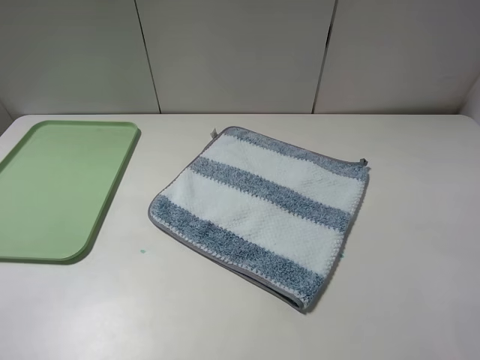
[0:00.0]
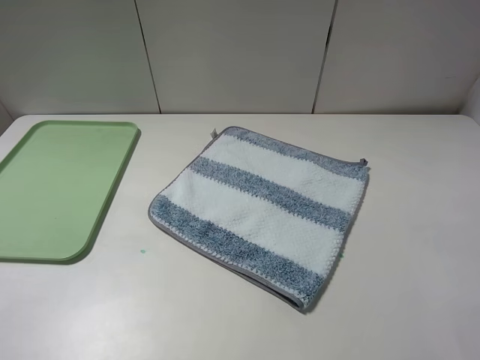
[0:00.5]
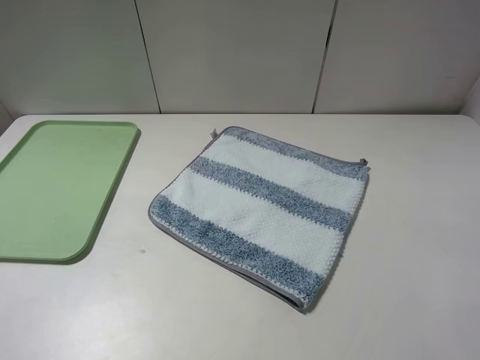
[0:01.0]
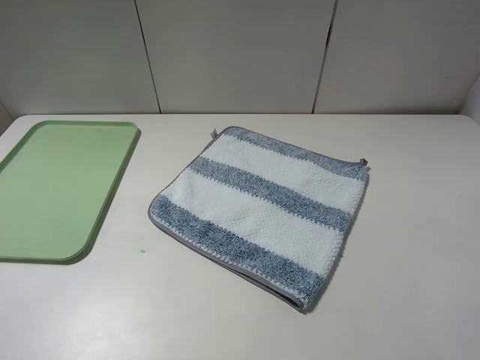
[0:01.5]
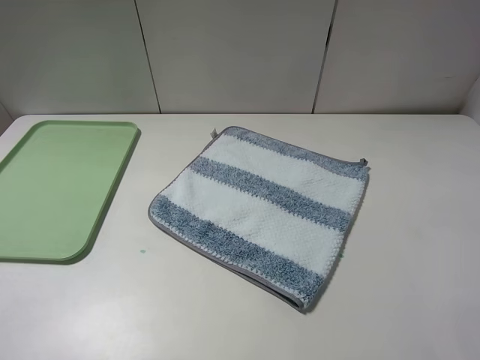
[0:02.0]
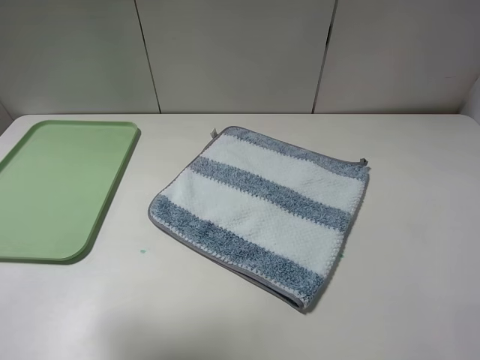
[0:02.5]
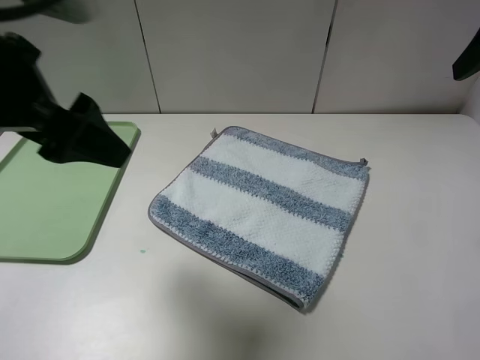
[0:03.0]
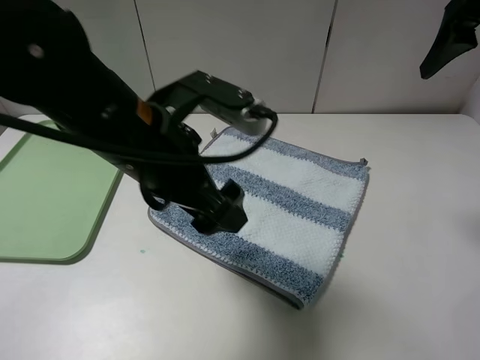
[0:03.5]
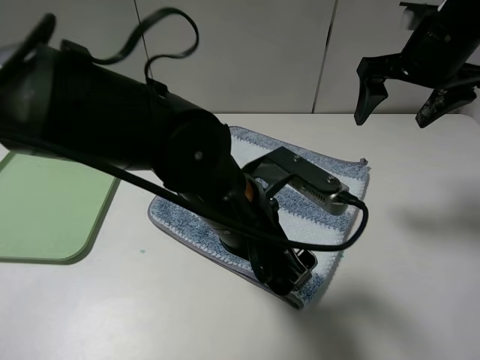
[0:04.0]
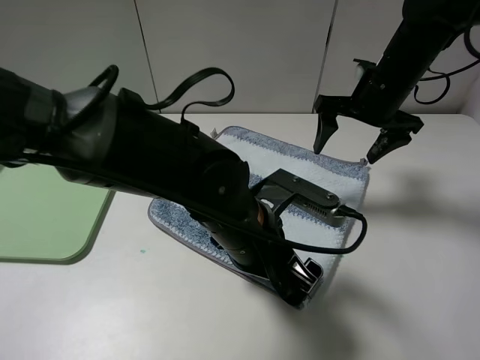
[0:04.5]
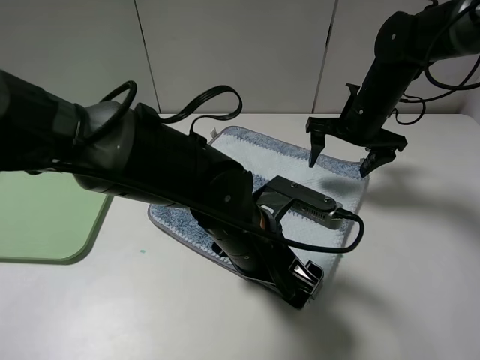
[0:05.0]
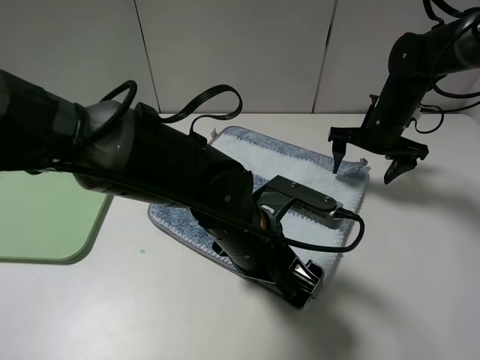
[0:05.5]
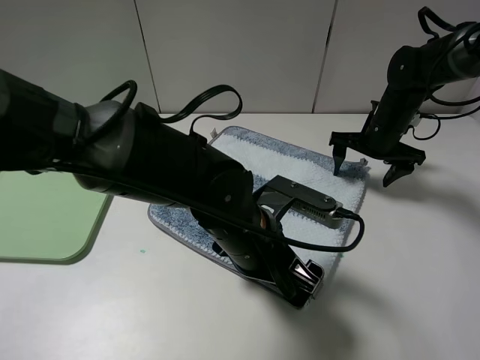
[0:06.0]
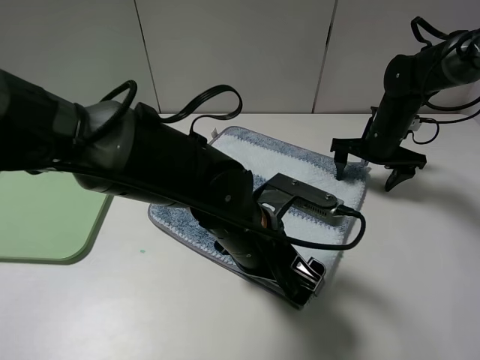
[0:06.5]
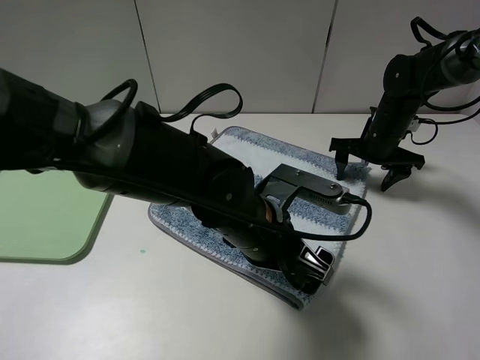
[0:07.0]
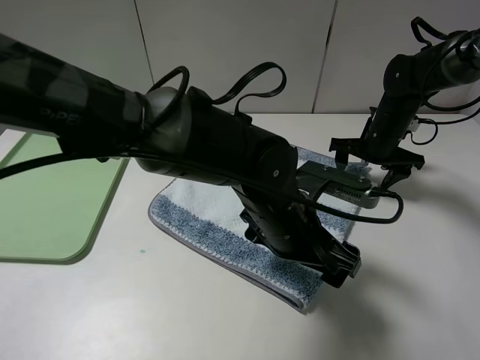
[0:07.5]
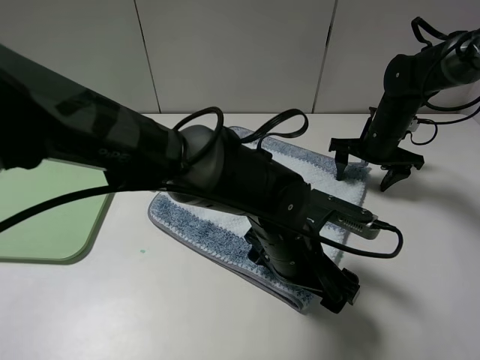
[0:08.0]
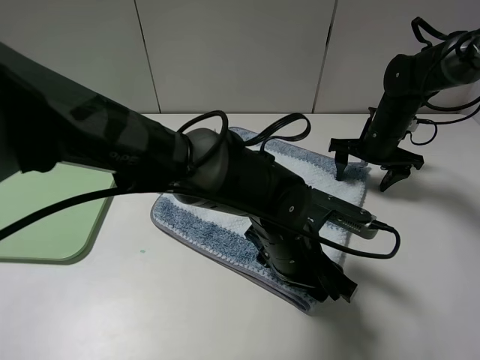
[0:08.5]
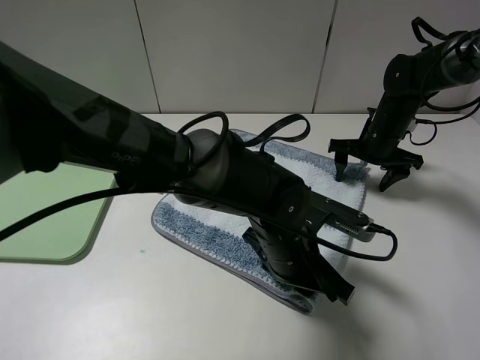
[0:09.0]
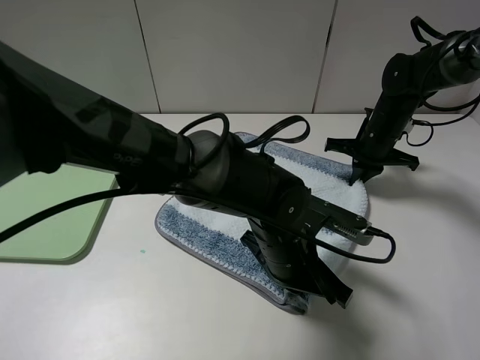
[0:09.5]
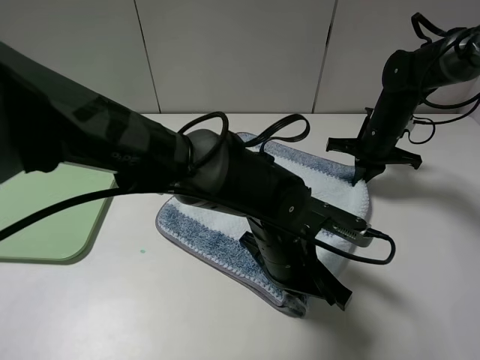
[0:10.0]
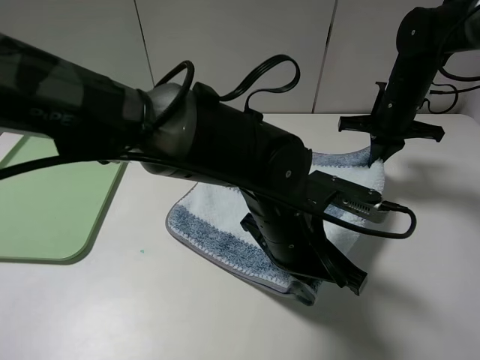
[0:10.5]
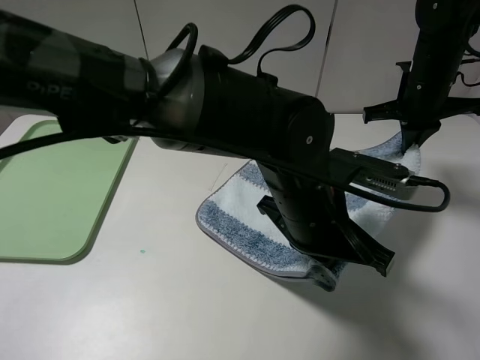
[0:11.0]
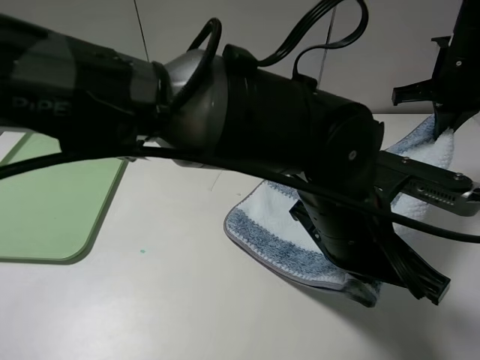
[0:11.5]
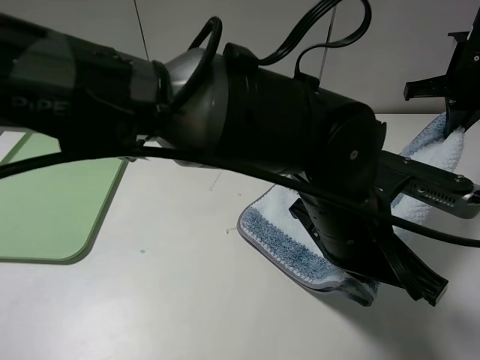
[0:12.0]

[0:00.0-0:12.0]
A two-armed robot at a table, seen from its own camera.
Step, 0:00.0 to 0:09.5: Grasp the blue white towel with the left gripper.
0:02.0 to 0:04.0: The left gripper shifts some 40 cm to the right, downward and forward. Meanwhile the right gripper heads forward, covering some 30 cm.
0:04.0 to 0:06.0: The right gripper is displaced downward and forward by about 20 cm.
0:06.0 to 0:08.0: The left gripper shifts some 5 cm to the right.
0:08.0 to 0:10.0: The left gripper closes. Meanwhile the right gripper closes its fingers.
0:10.0 to 0:12.0: The right gripper heads upward and to the right, covering about 15 cm. Meanwhile the left gripper is displaced upward by roughly 10 cm.

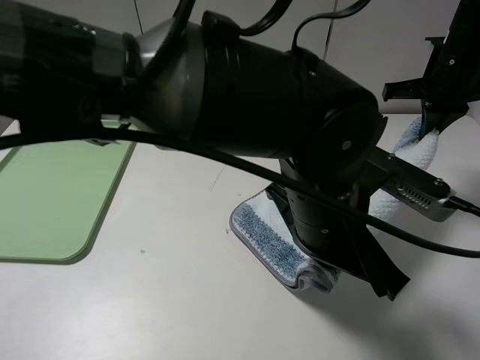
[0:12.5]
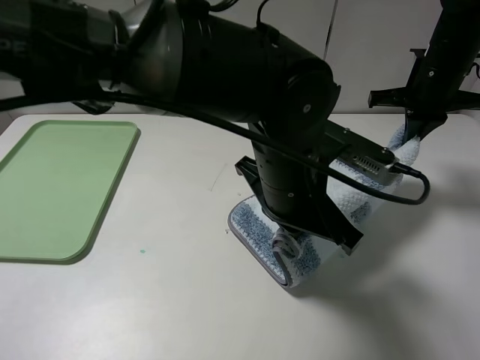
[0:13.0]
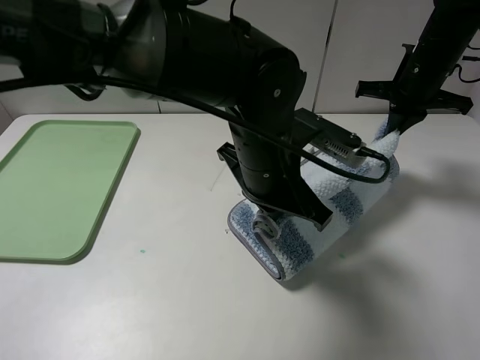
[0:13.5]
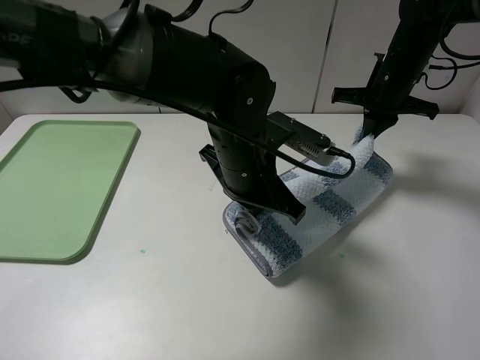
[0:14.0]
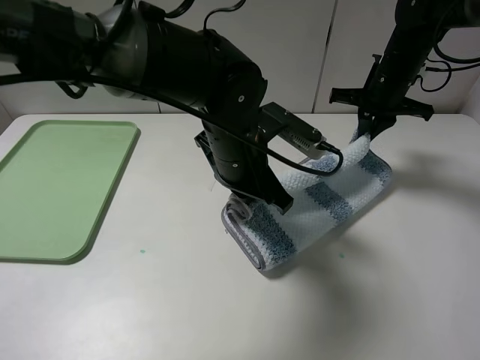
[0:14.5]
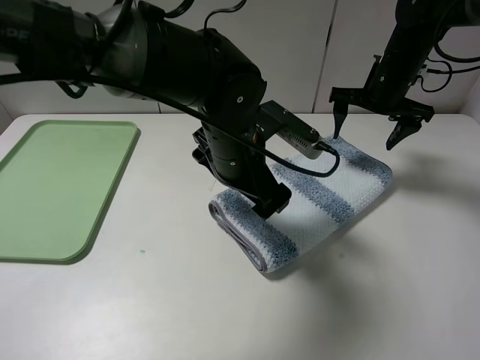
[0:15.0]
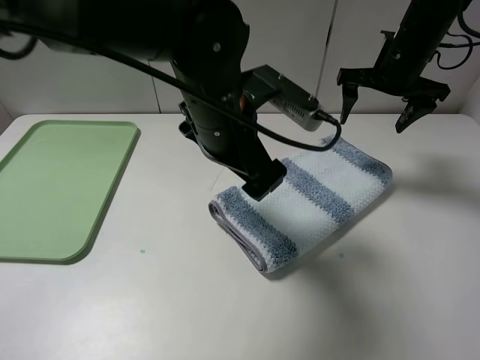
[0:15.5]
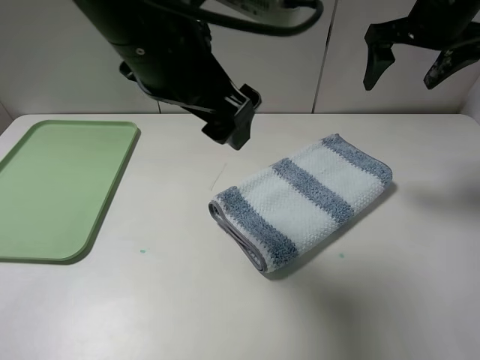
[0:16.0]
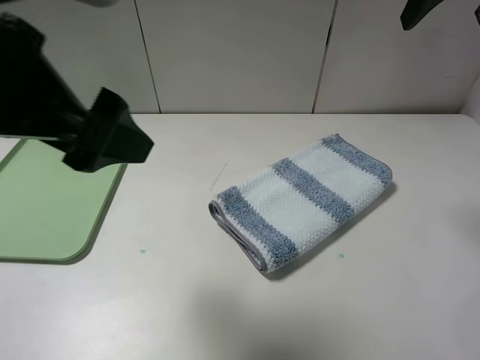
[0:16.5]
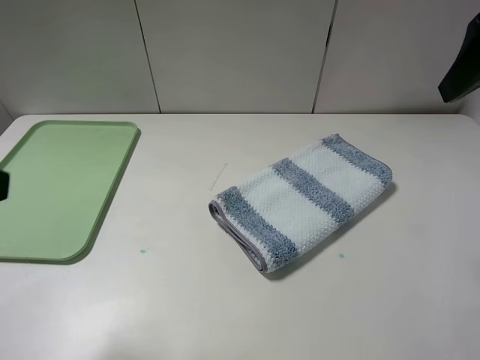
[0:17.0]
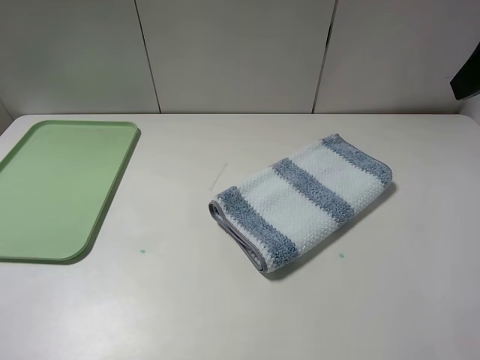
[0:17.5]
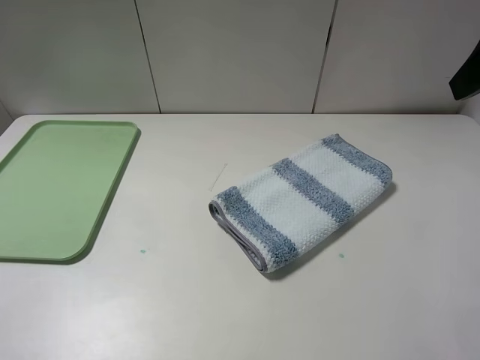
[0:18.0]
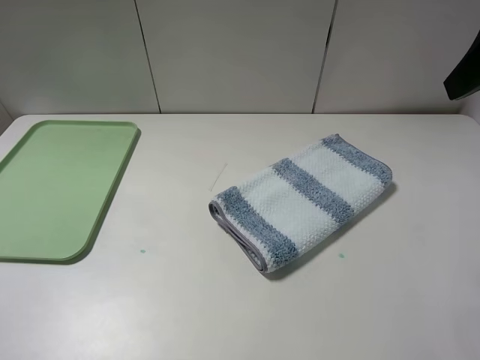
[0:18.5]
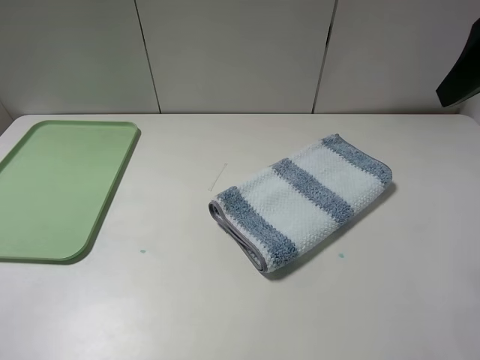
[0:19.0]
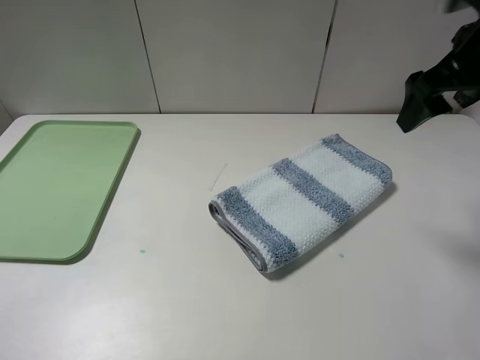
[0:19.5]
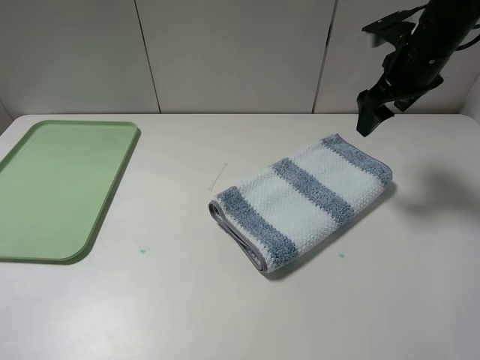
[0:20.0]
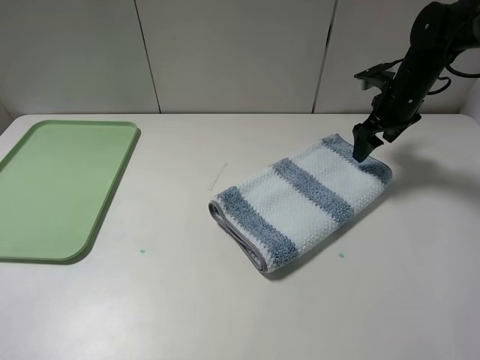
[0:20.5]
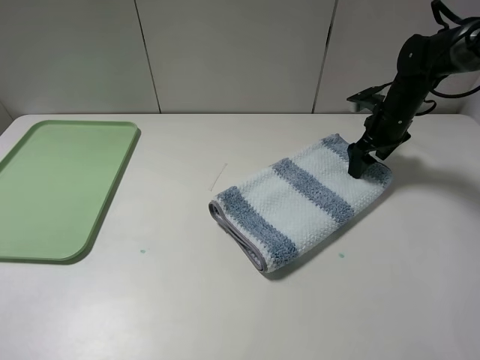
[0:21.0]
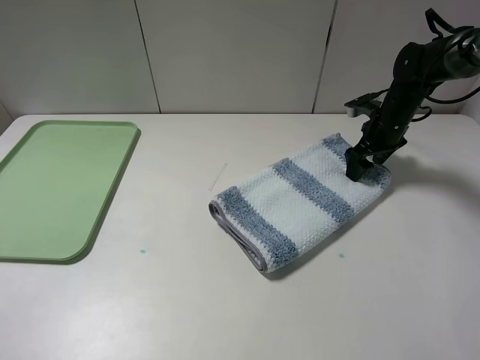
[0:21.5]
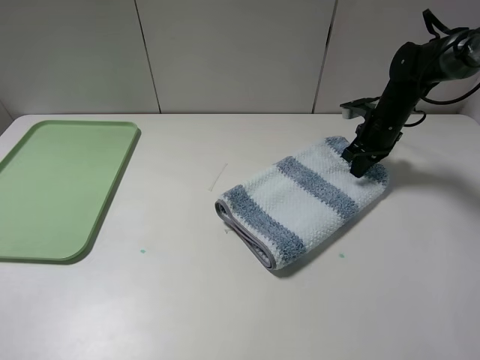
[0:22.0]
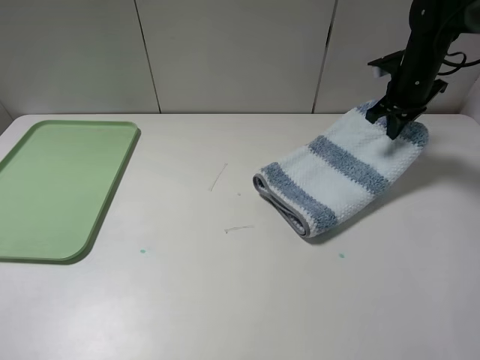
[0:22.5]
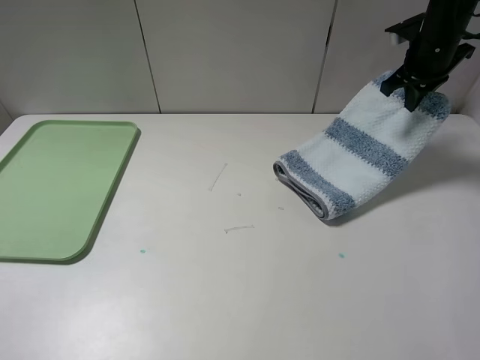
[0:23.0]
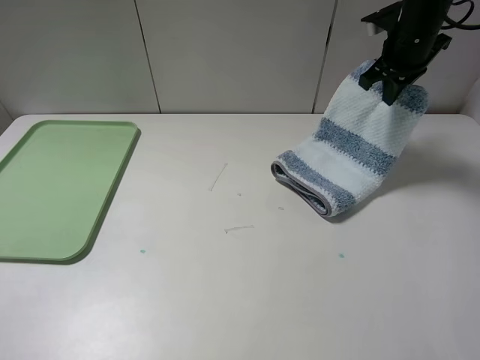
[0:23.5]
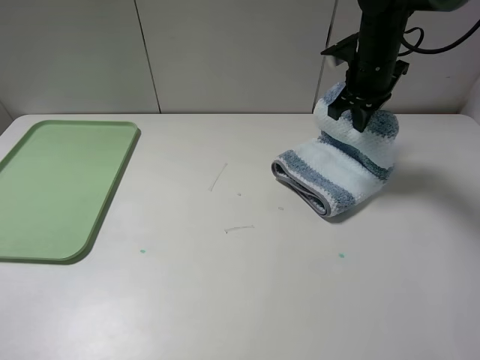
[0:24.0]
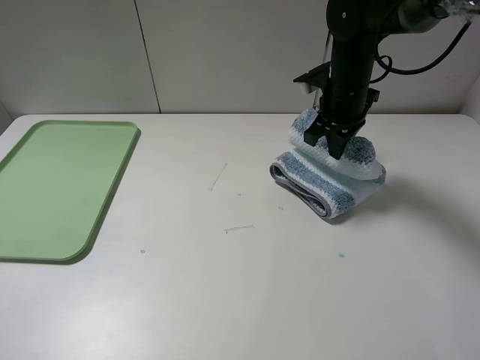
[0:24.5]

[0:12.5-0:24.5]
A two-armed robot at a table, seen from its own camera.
Step, 0:12.5 to 0:14.5: Fold the blue white towel upwards with the left gripper.
Step, 0:15.5 to 0:22.0: Grasp the blue white towel with the right gripper.
0:12.5 to 0:14.5: The left gripper goes some 15 cm forward and to the left; the right gripper travels downward by approximately 5 cm, and opens up.
0:14.5 to 0:16.5: The left gripper moves to the left, upward and backward, roughly 30 cm, and opens its fingers. The right gripper travels upward and backward by some 25 cm, and opens its fingers.
0:16.5 to 0:18.5: The left gripper shifts some 20 cm to the left, backward and downward. The right gripper heads backward, covering approximately 10 cm.
0:18.5 to 0:20.5: The right gripper is displaced forward and downward by roughly 35 cm.
0:20.5 to 0:22.5: The right gripper closes its fingers.
0:22.5 to 0:24.5: The right gripper heads to the left and backward, covering about 15 cm.

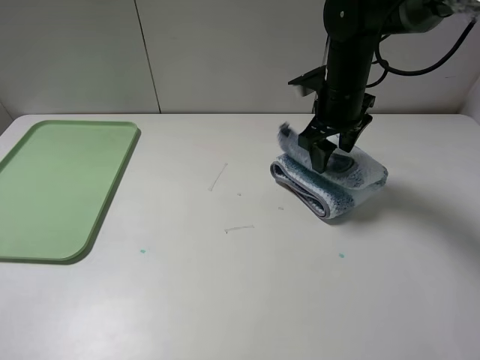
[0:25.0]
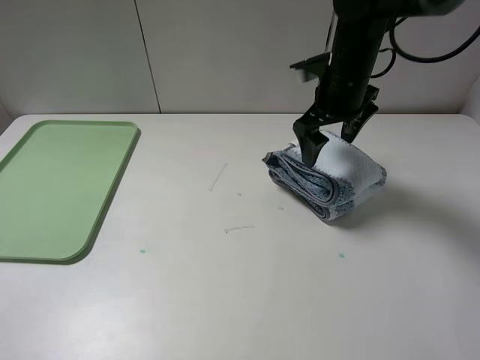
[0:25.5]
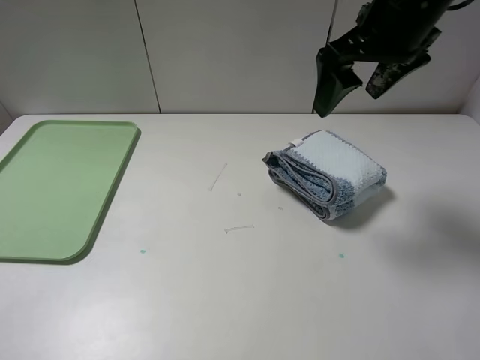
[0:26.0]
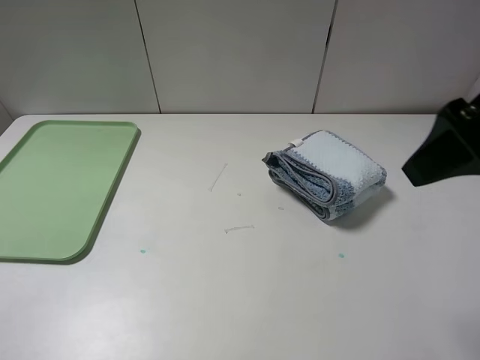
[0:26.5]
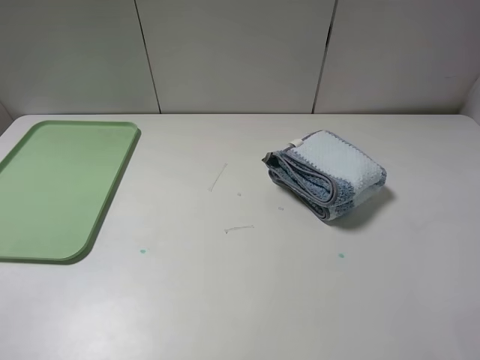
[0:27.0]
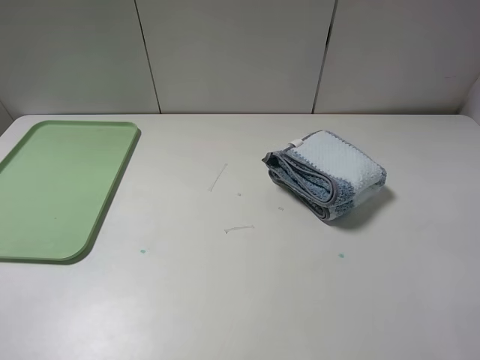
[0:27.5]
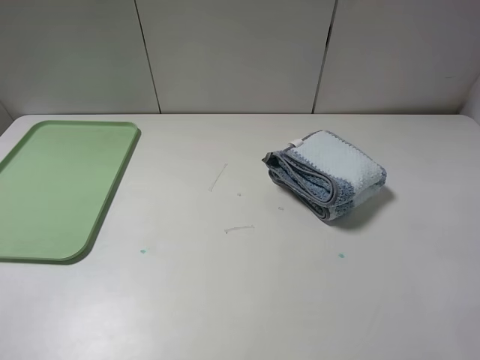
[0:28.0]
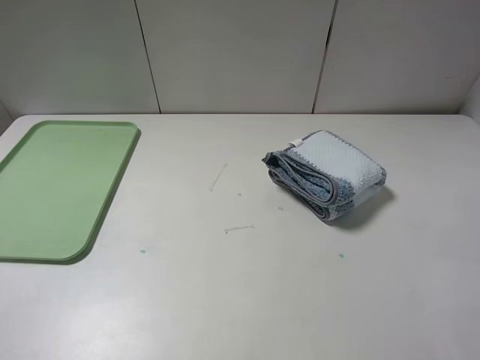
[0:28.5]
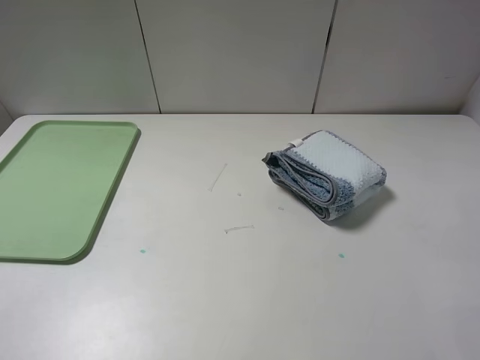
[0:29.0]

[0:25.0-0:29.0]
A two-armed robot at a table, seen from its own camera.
0:25.0 to 0:27.0: The right gripper goes about 40 cm backward, upward and to the right.
